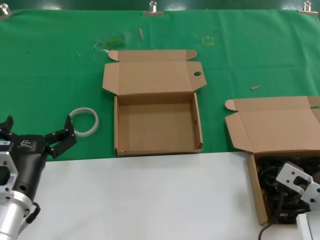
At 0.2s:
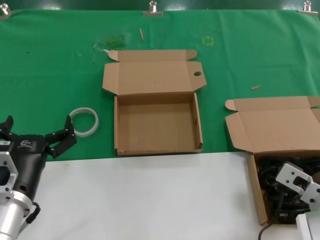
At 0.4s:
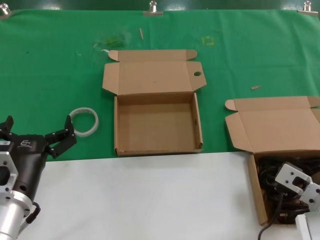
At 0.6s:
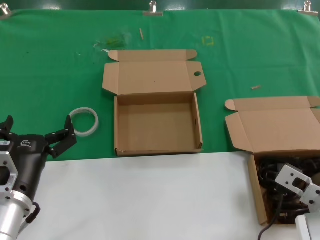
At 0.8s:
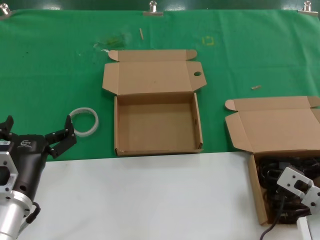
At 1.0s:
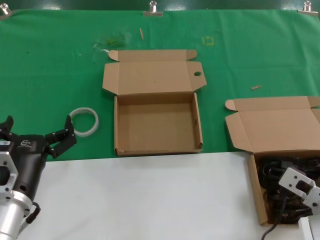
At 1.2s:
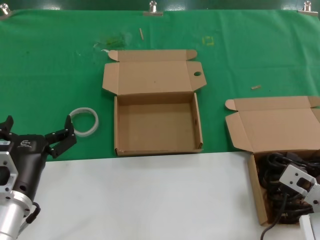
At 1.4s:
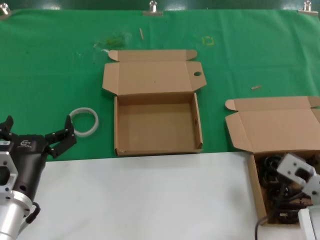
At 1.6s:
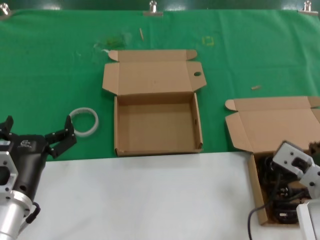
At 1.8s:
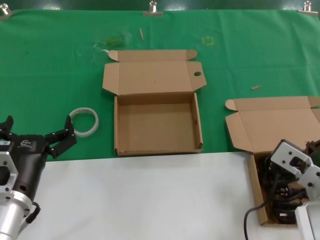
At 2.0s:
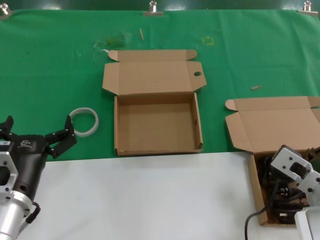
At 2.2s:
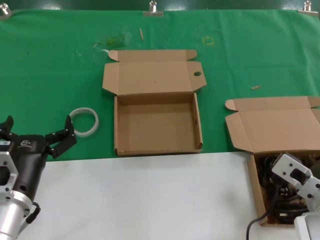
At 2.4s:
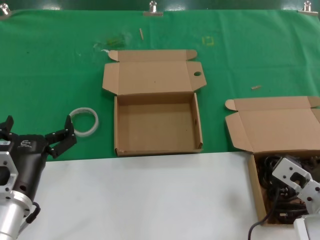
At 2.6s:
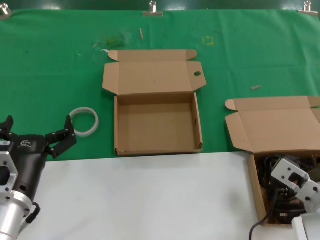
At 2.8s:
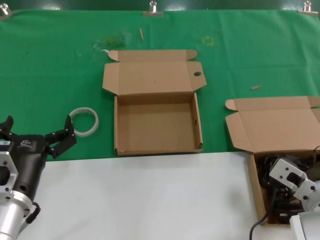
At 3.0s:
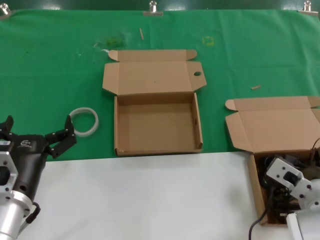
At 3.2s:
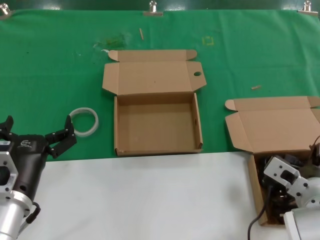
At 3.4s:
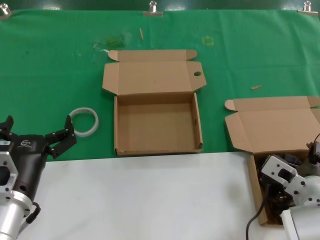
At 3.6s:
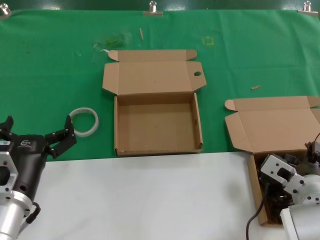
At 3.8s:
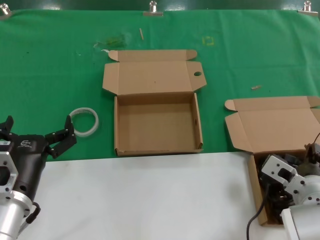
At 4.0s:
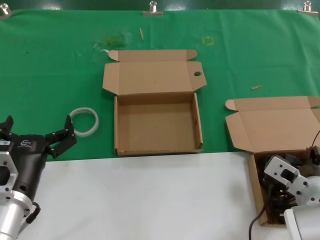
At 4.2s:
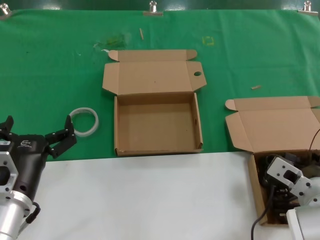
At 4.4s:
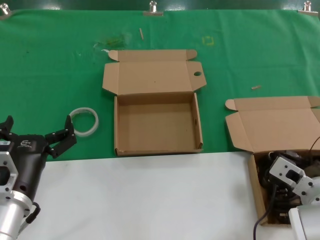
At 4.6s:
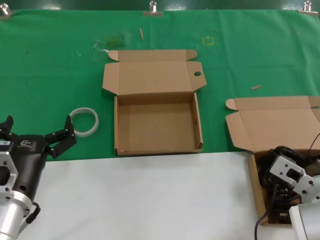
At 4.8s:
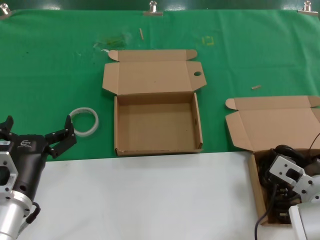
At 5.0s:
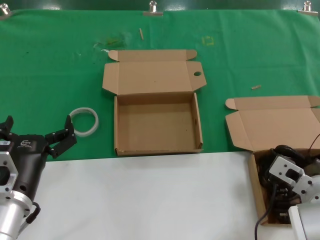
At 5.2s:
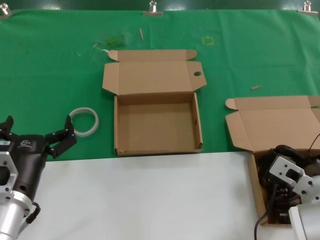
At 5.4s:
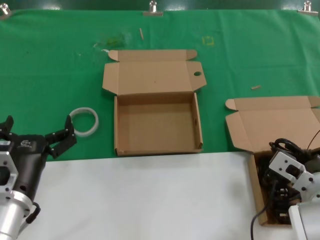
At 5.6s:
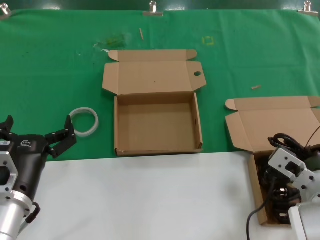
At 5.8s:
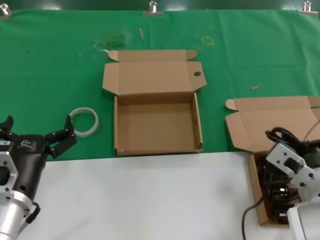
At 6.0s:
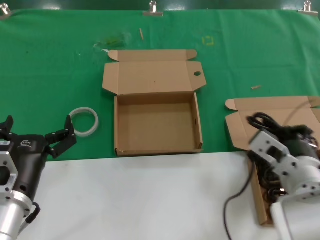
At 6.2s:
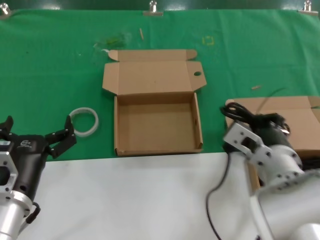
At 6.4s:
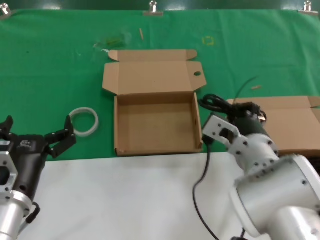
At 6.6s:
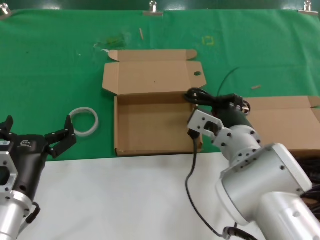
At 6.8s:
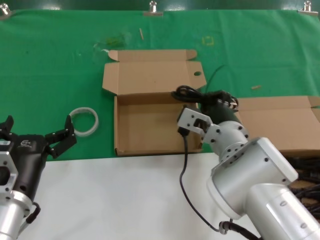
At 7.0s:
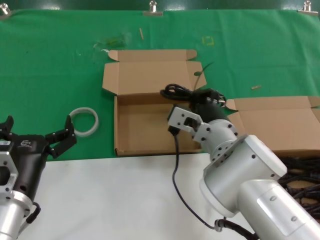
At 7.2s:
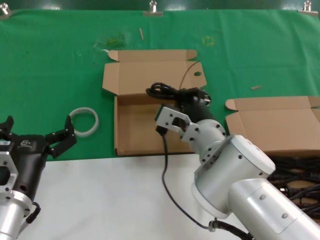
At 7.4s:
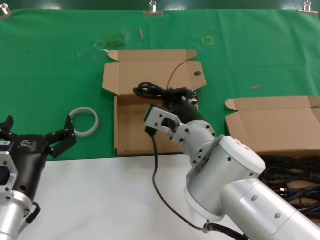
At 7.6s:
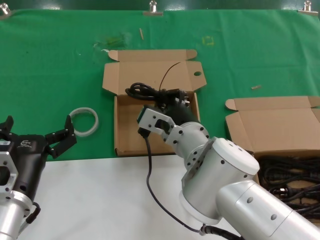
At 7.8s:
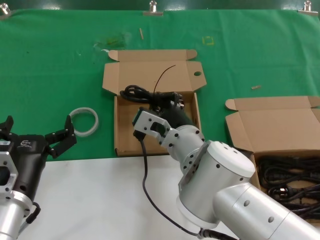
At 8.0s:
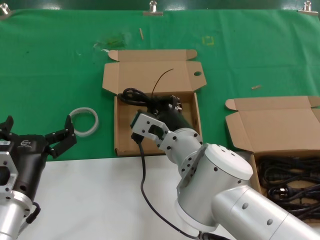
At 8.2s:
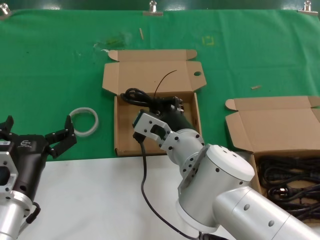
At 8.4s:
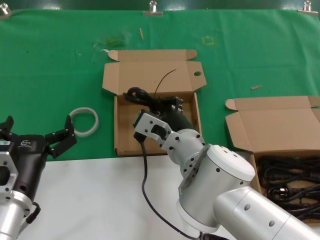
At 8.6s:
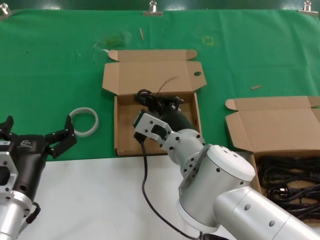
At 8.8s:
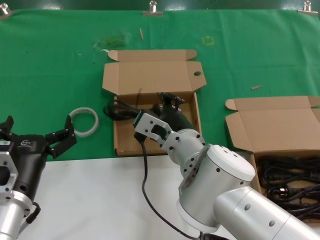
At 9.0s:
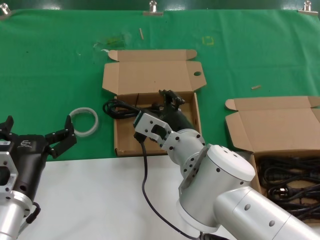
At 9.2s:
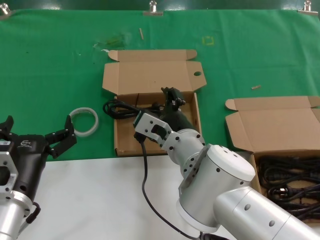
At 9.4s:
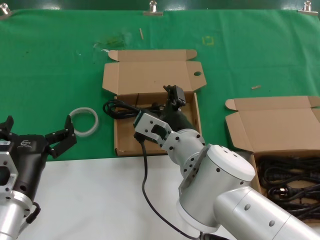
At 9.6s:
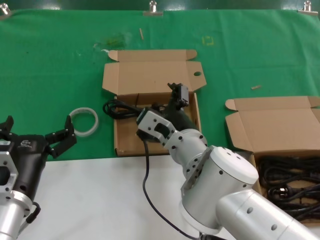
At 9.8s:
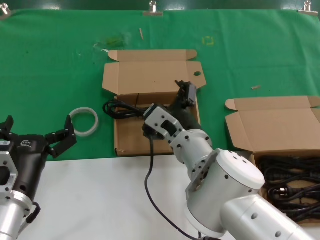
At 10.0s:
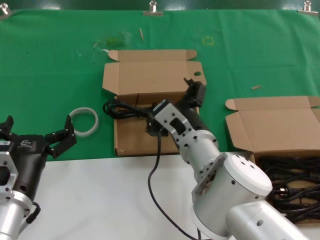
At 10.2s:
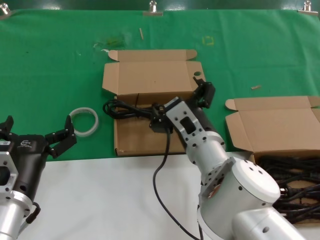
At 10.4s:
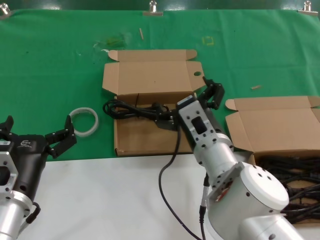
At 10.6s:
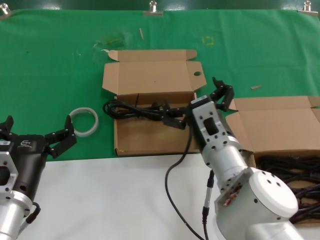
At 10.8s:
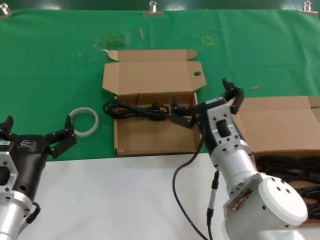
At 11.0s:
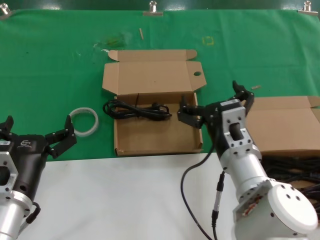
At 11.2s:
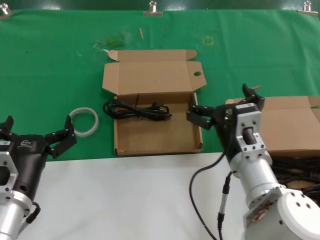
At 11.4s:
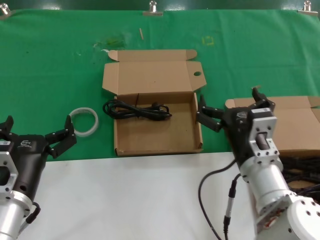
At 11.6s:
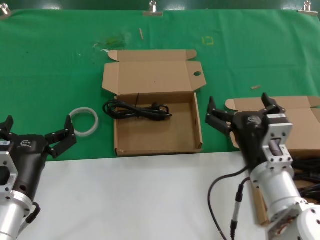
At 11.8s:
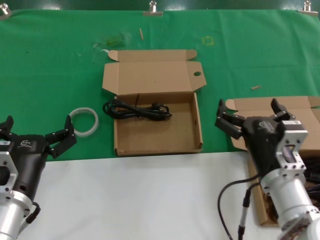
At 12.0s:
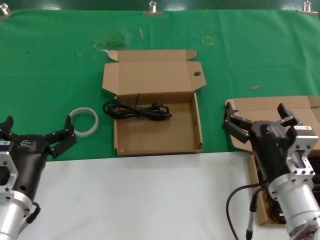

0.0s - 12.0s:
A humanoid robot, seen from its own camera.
Task of the whole recording: take the parts from the box containing them and put them into an empty box.
Step, 0.0s - 4.4s: Grasp the data cable.
Step, 4.6s - 8.8s: Place the data cable in the another box.
0.0s - 1.6s: The right hand shifts by about 5 cm.
1.6s - 3.0s: There are only small adjustments of the hands.
3.0s - 4.4s: The hands move only a little.
4.4s - 6.0s: The right hand shifts about 5 cm upward.
6.0s - 7.6s: The right hand heads to the left and forward, covering roughly 20 cm.
7.6s - 9.0s: There are only small adjustments of the hands.
10.4s - 12.0s: The right hand goes roughly 15 cm to the right and backward.

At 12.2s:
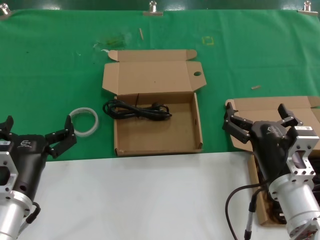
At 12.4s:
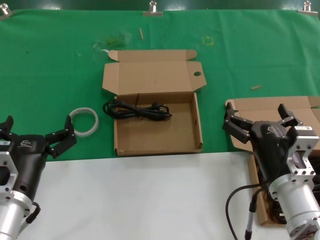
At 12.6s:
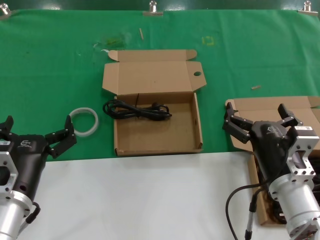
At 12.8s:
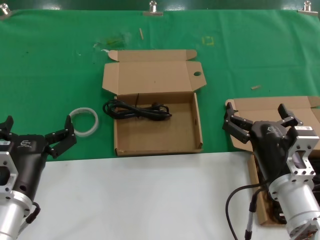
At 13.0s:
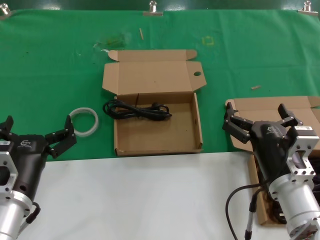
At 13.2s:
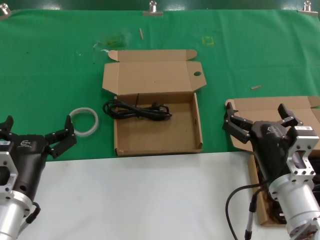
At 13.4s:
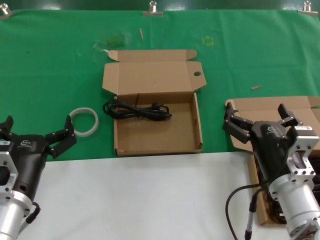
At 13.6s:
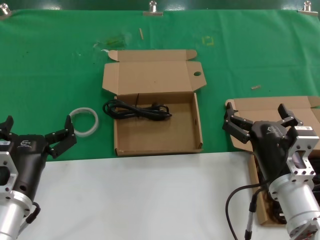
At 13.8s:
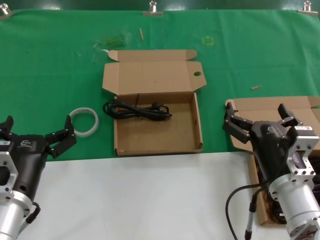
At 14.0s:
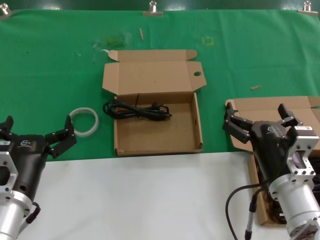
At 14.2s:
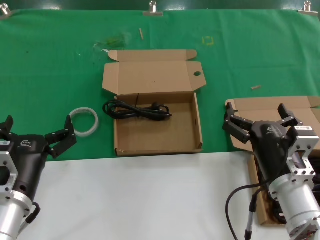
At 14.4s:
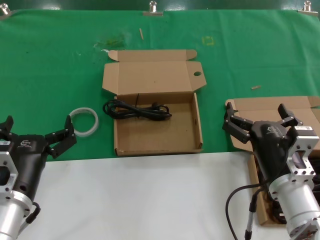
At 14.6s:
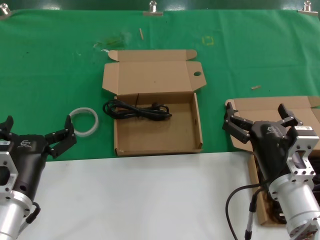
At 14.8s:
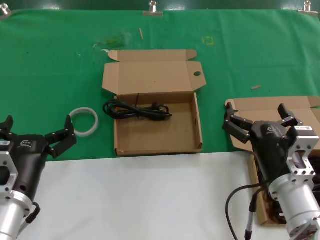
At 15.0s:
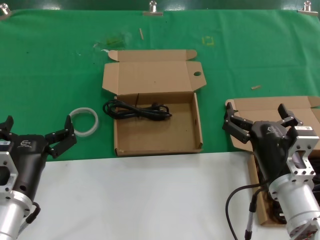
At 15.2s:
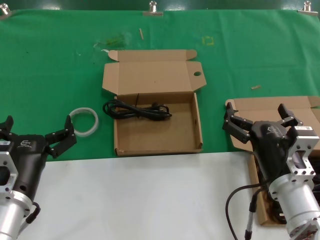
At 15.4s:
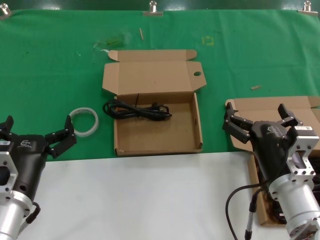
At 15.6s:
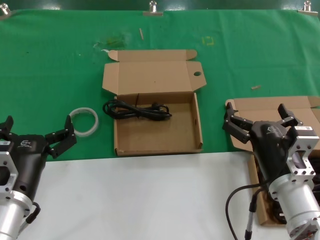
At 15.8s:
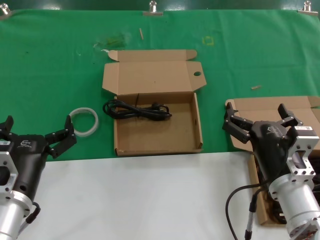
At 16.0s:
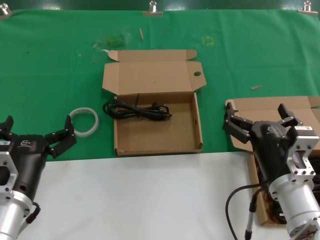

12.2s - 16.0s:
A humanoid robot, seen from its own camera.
Task of the whole recording: take the parts from the box containing them and put them into an empty box.
12.2s - 16.0s: Neither hand changes place.

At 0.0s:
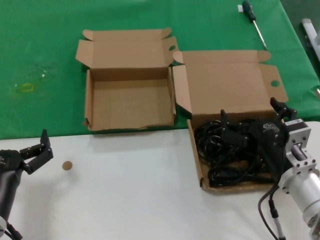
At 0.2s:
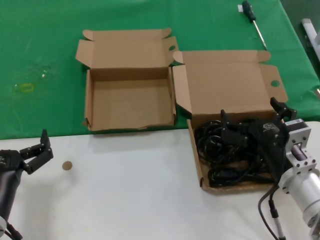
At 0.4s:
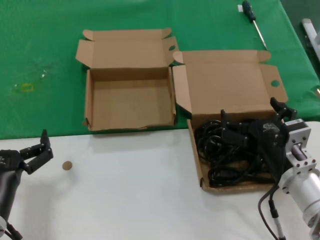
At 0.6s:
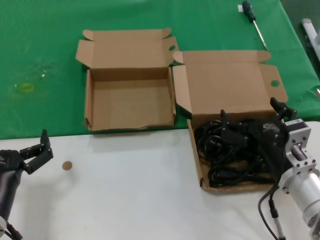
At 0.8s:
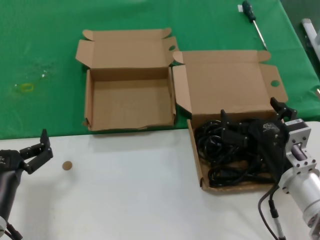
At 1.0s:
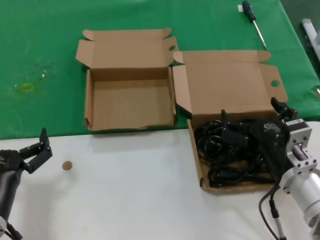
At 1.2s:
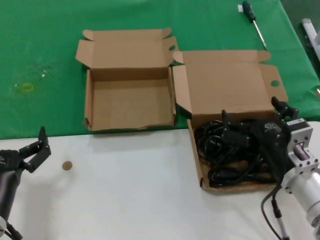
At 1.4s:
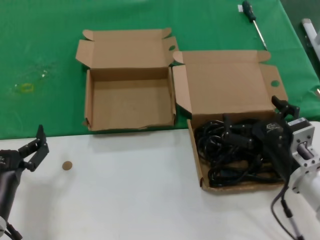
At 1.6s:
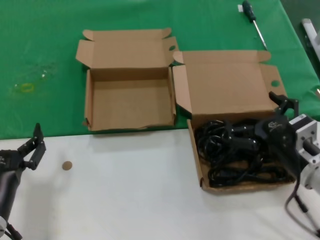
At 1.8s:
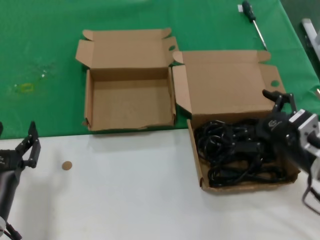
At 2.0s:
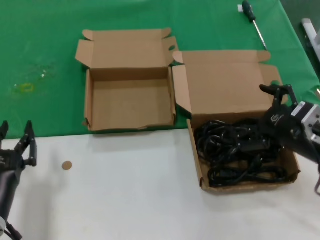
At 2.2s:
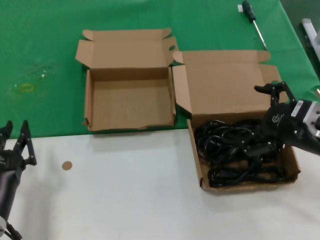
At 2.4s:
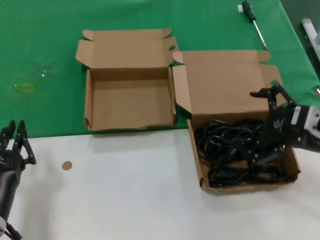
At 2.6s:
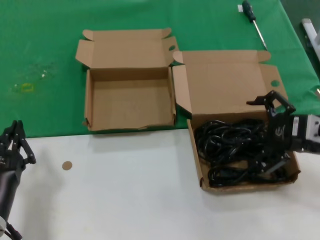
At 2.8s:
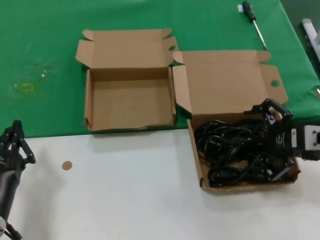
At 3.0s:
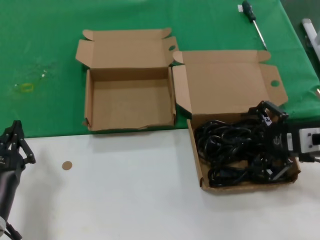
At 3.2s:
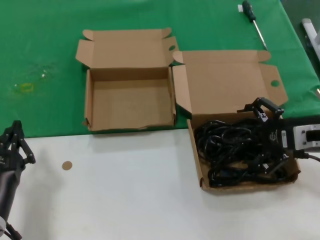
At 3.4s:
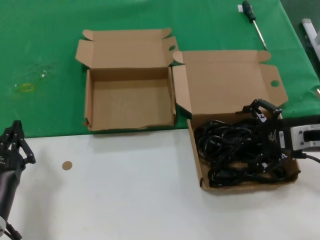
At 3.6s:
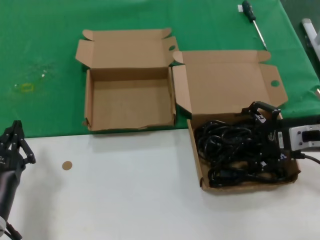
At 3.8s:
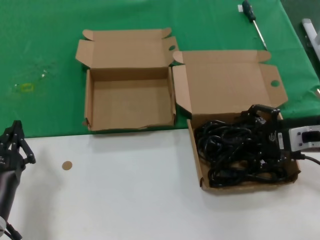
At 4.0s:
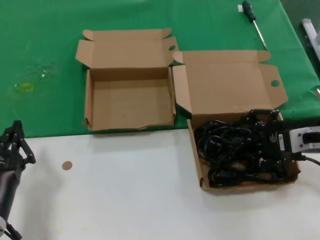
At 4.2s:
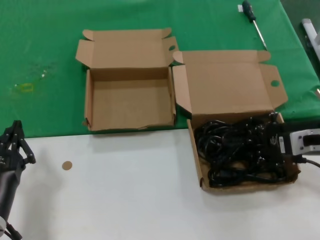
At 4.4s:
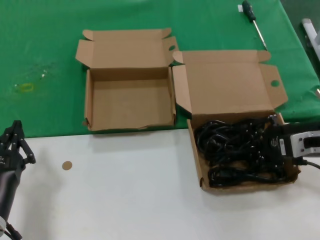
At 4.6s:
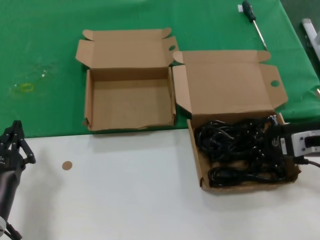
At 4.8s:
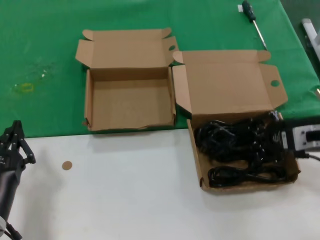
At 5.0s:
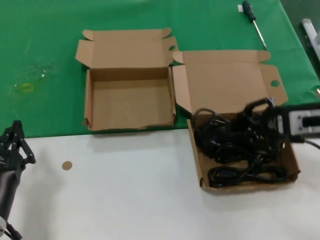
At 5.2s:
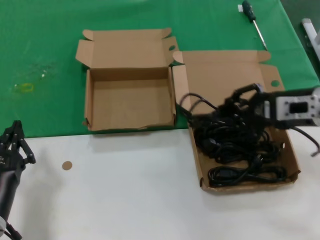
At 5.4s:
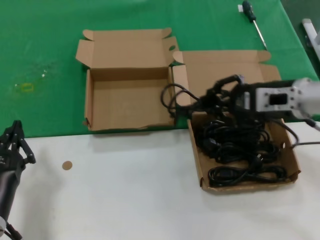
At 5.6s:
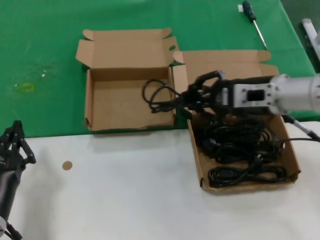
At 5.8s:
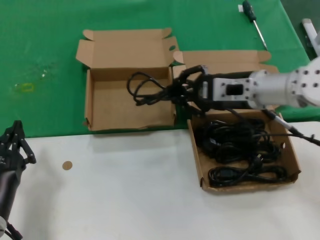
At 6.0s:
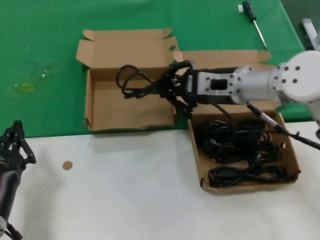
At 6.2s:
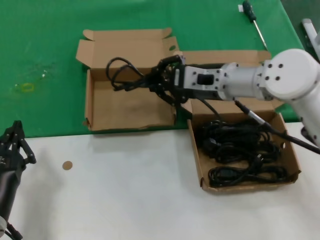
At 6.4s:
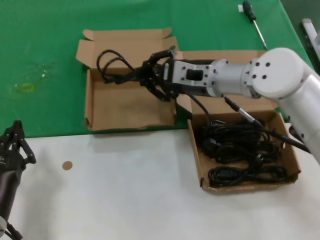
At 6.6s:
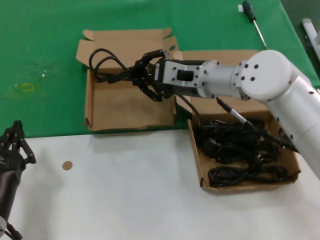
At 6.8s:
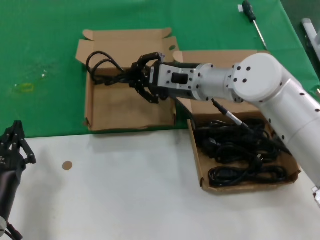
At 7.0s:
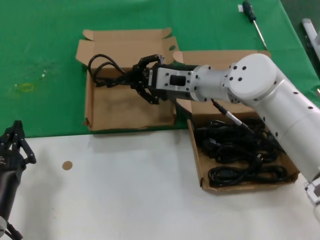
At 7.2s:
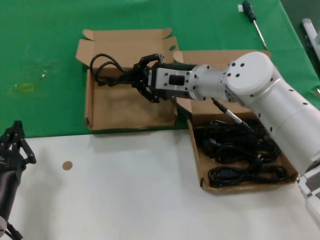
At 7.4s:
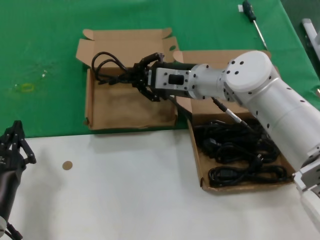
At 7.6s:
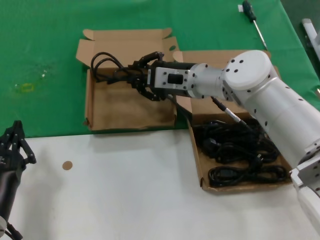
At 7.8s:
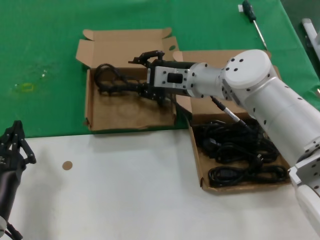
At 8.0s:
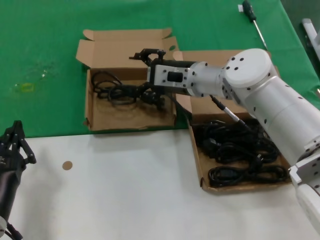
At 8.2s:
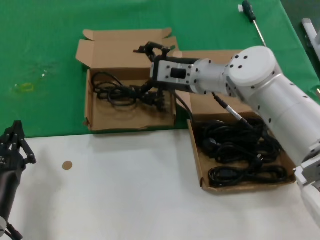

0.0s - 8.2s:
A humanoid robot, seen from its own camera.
Task of the whole recording: take the parts from the box containing them and put them into an empty box.
Step, 0.0s - 4.4s: Grasp the data cable.
Step, 4.6s - 8.0s: Place the data cable in the another box.
0.0s - 1.6s: The hands move only a little.
1.6s - 3.2s: The right hand goes roughly 15 cm upward, to the right and forward.
3.2s - 5.0s: The hands stay close to where they were, moving slightly.
5.0s - 6.6s: The right hand shifts some 25 cm to the left and forward.
6.6s - 8.2s: The hands stay close to where they were, moving slightly.
